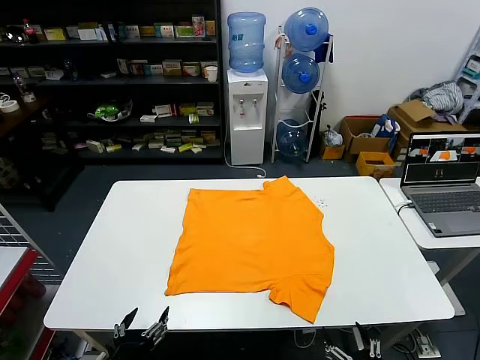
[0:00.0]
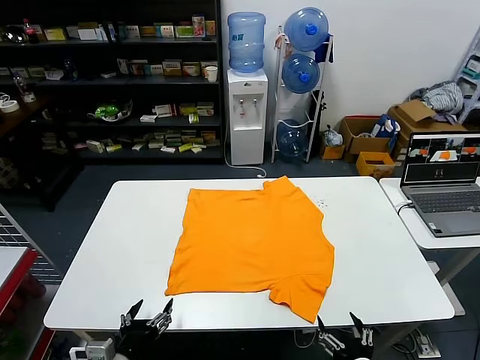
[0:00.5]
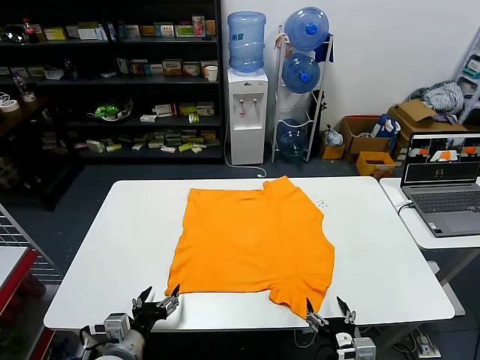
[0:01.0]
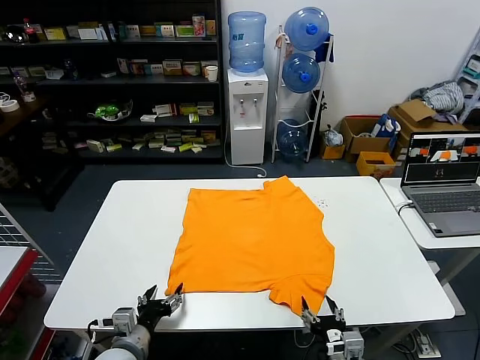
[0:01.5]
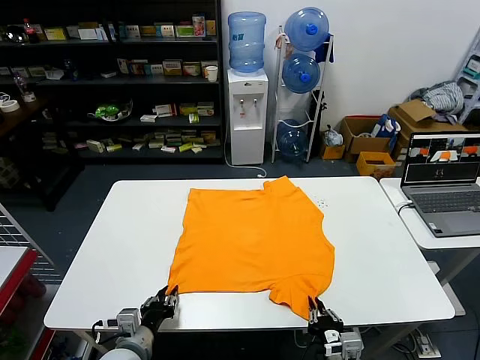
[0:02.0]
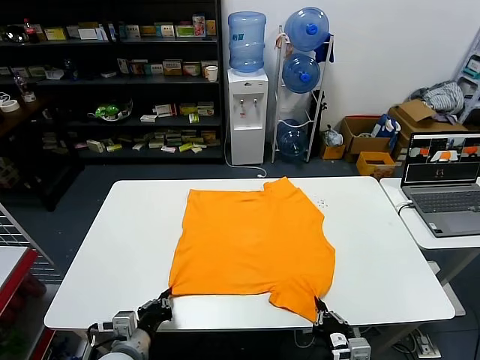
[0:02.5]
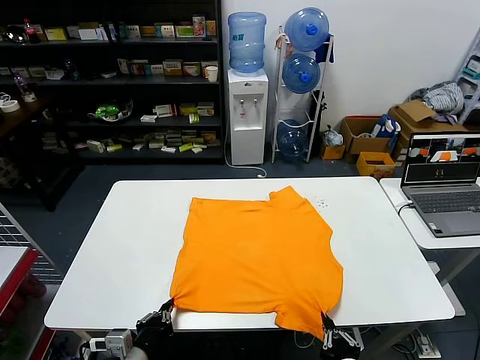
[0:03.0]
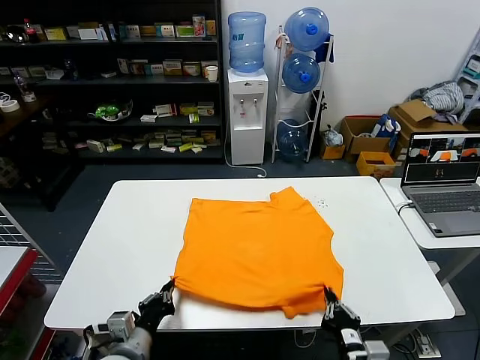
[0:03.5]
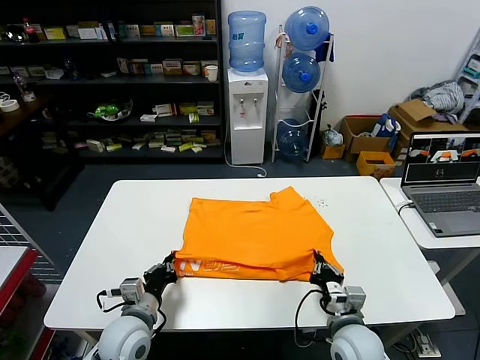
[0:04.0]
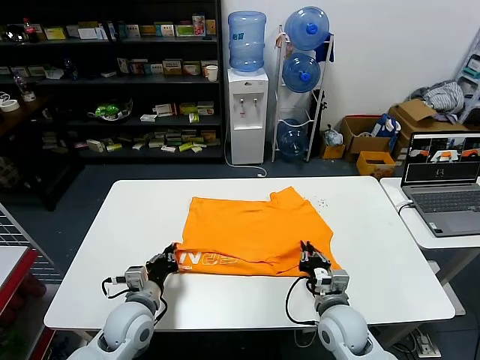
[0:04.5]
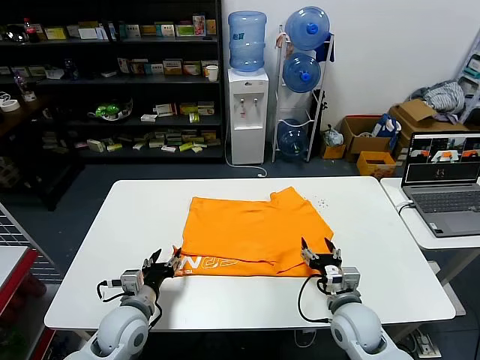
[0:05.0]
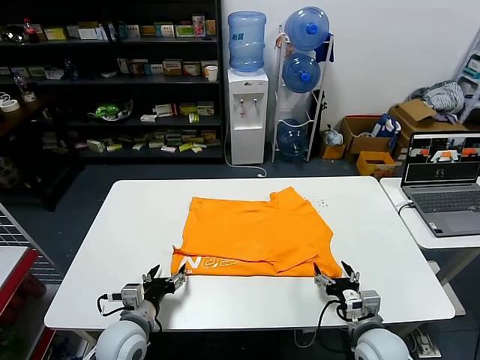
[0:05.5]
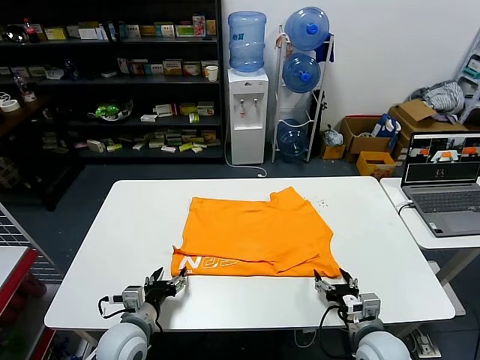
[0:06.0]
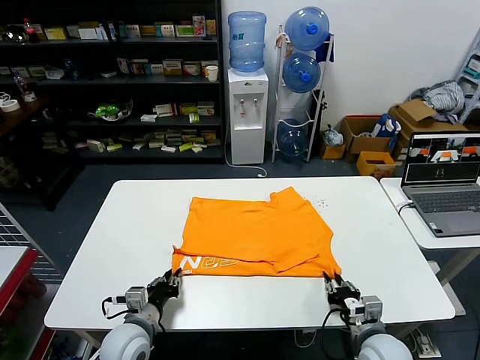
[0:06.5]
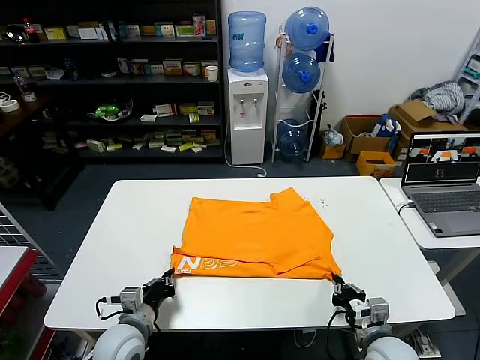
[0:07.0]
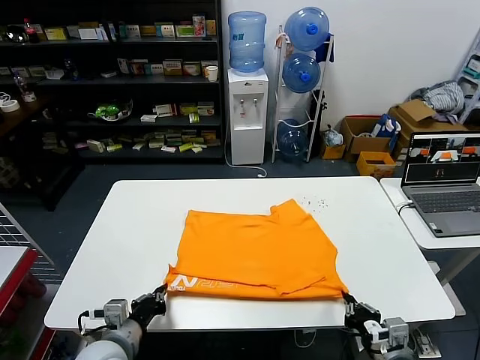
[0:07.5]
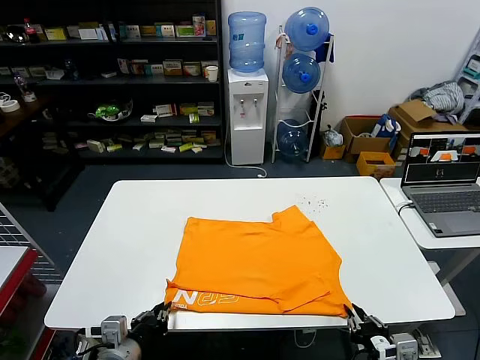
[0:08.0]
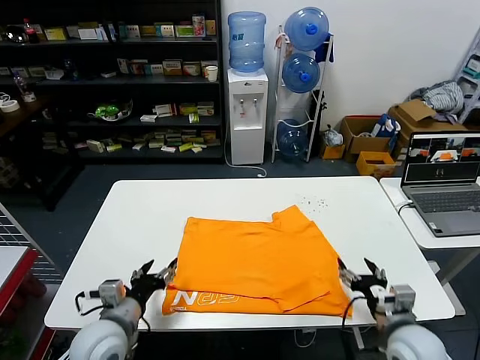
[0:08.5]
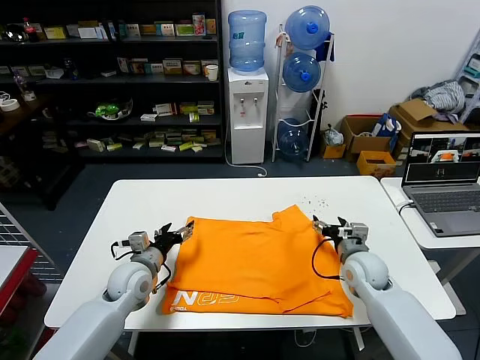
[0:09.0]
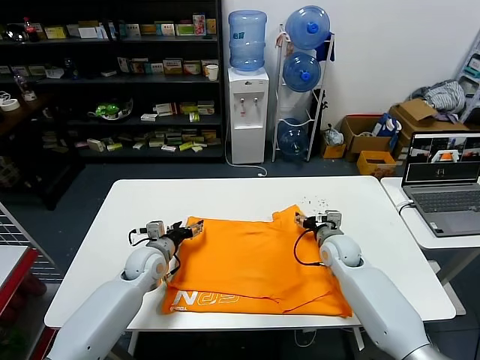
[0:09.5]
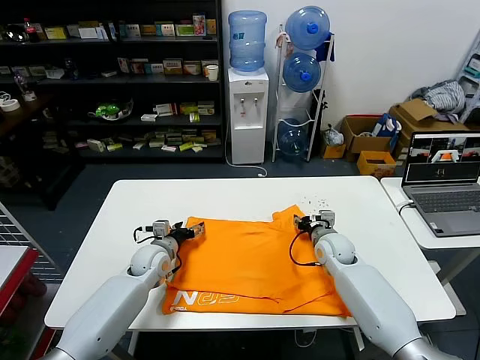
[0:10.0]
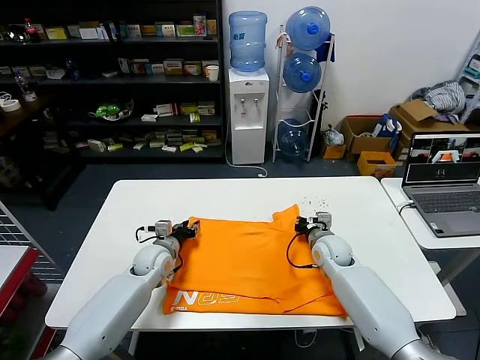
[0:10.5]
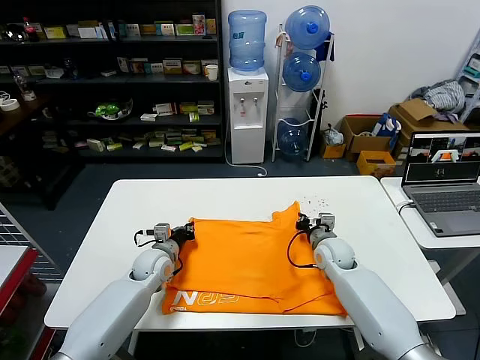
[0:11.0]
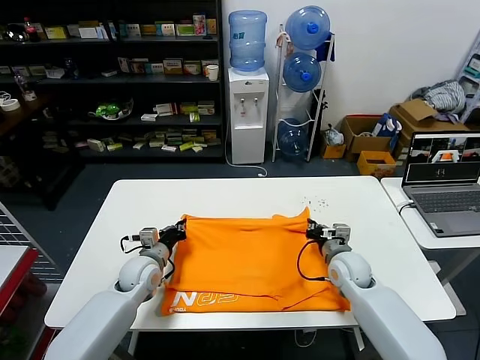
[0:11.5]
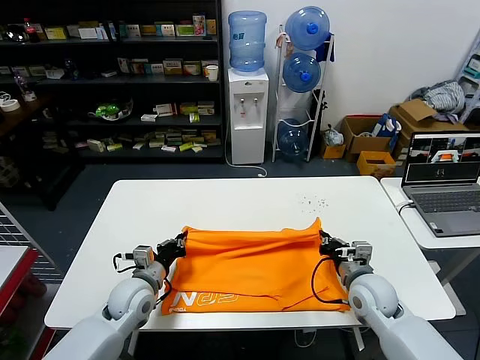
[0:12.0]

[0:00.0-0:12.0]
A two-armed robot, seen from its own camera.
Task of the whole recording: fold and organize the clothes.
Step, 0:00.0 to 0:02.0: use both grippers simultaneously to clamp the lower edge of the clothing fabric.
Step, 0:02.5 to 0:04.5: use both grippers to drag the lower edge of the fabric forward and fold it over the upper edge.
Step, 0:05.0 to 0:08.0: Drag the clothes downward with both gripper.
Step, 0:08.5 to 0:10.5: use both grippers simultaneously to clamp the upper edge of the clothing fabric.
0:02.0 to 0:04.0: The right gripper shifts approximately 10 cm forward, while the left gripper travels forward by about 5 cm, and closes up.
0:04.0 to 0:06.0: The left gripper opens up. The right gripper moves to the right, roughly 5 cm, and opens up.
0:06.0 to 0:08.0: Both grippers move backward and upward, approximately 10 cm. The left gripper closes its fingers. Meanwhile the right gripper closes.
0:08.0 to 0:10.0: The two grippers go roughly 30 cm forward. The left gripper opens its fingers. Meanwhile the right gripper opens.
0:10.0 to 0:12.0: The grippers both shift backward by about 10 cm. The left gripper closes up, while the right gripper closes its fingers.

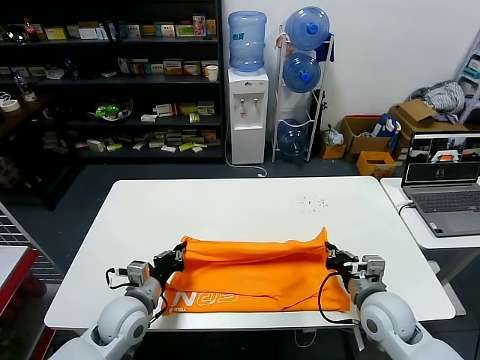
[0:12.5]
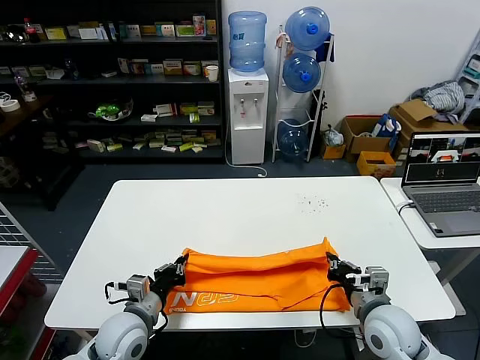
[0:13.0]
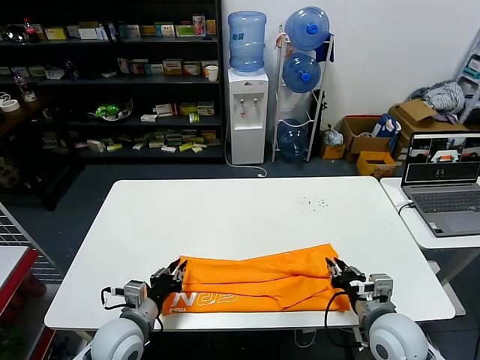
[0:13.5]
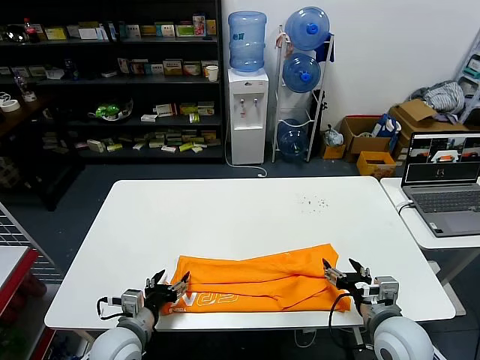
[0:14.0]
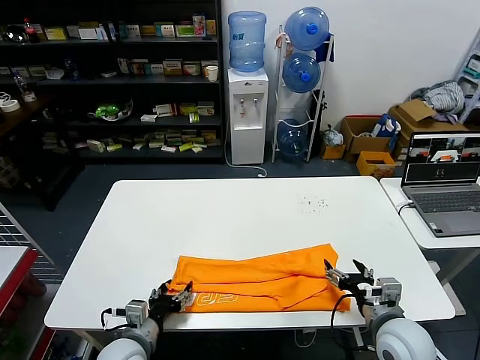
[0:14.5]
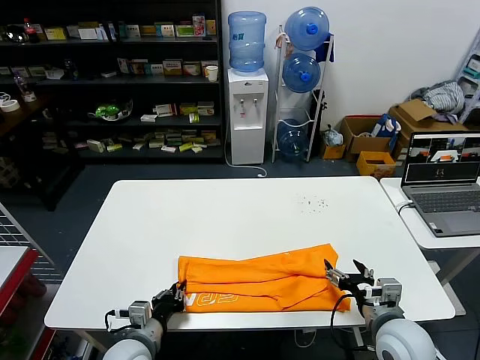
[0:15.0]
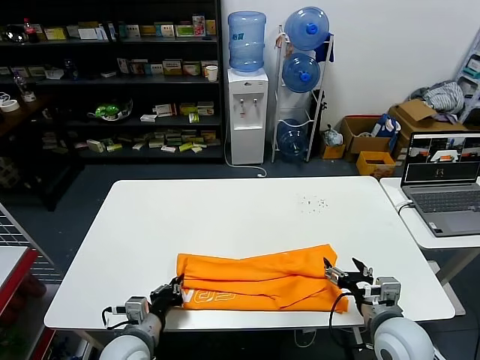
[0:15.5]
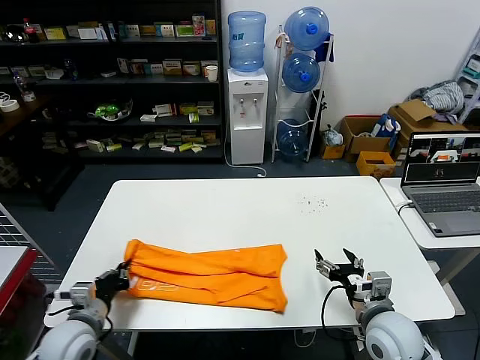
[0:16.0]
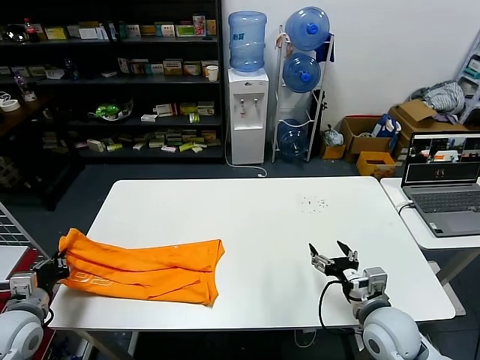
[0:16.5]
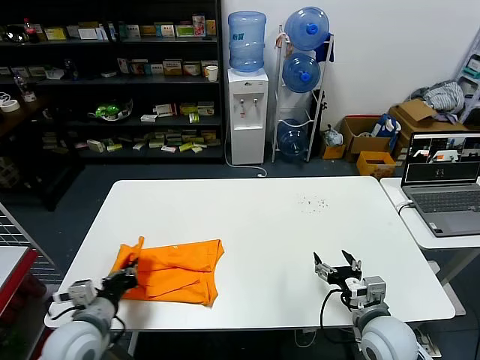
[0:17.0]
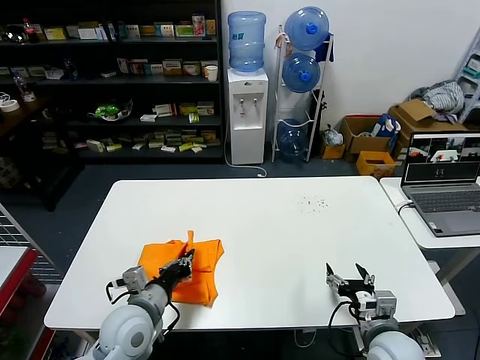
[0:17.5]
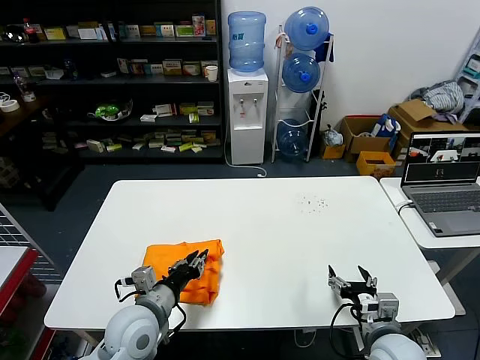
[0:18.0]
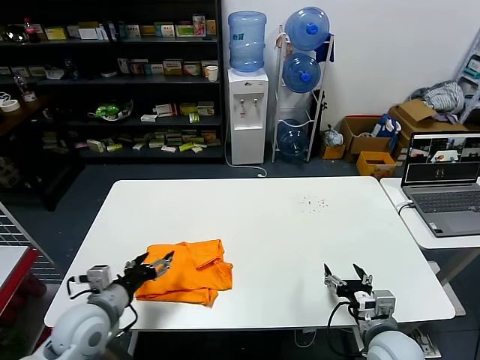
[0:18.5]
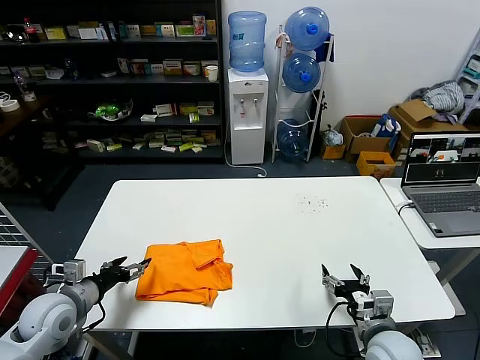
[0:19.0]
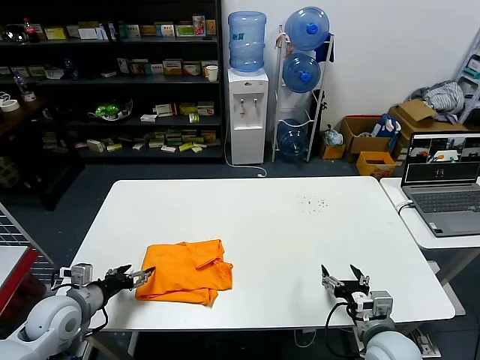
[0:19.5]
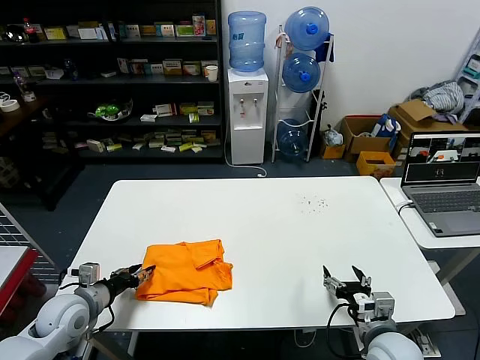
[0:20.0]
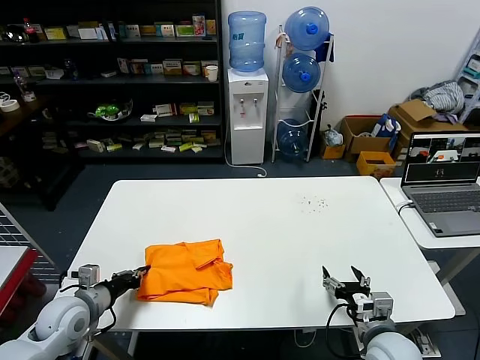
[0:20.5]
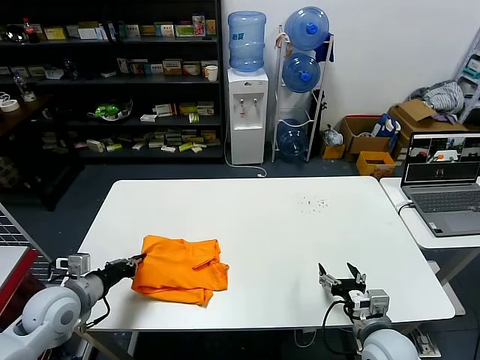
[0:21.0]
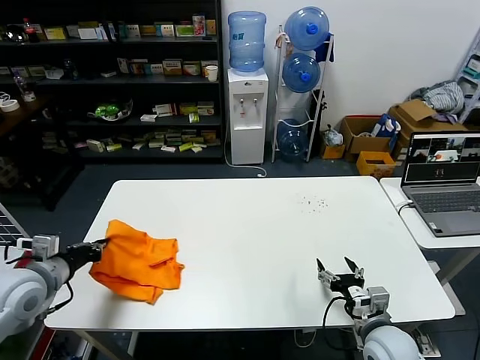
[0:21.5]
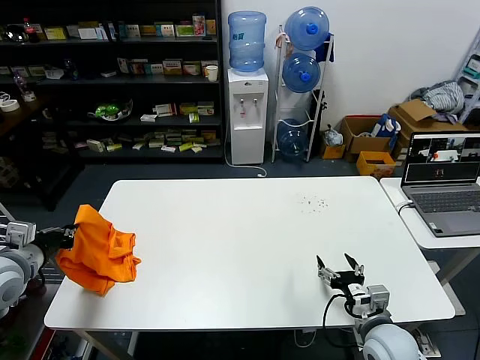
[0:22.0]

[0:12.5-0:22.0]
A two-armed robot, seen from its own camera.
Task of the whole recording: fold and organize the clothes.
Step, 0:13.5 to 0:15.0: use the left gripper to clamp the left edge of the fabric.
Step, 0:15.5 to 0:18.0: use the left gripper to drag the left edge of the fabric to the left and folds it over the right edge.
0:12.5 to 0:14.5: The two grippers go some 5 cm backward. The left gripper opens, while the right gripper opens.
0:14.5 to 0:16.5: The left gripper heads to the left, covering about 20 cm, and closes up.
0:16.5 to 0:18.0: The left gripper heads to the right, covering some 25 cm. The right gripper ends up some 5 cm from where it was.
0:18.0 to 0:20.0: The left gripper goes roughly 20 cm to the left, and opens up.
0:20.0 to 0:22.0: The left gripper moves upward, some 15 cm, and closes up.

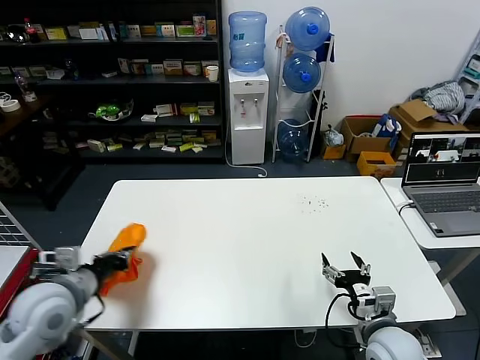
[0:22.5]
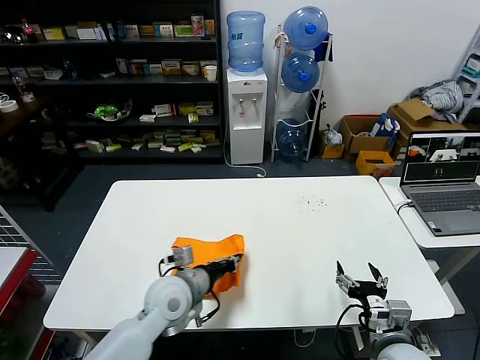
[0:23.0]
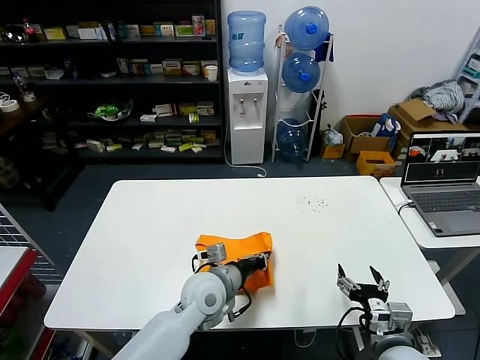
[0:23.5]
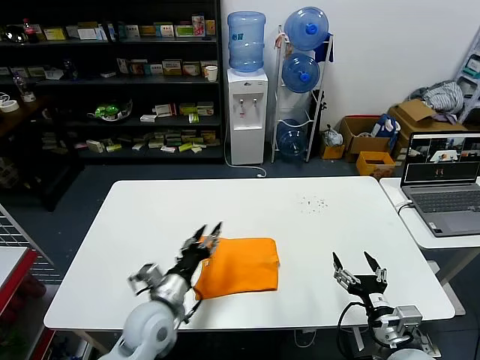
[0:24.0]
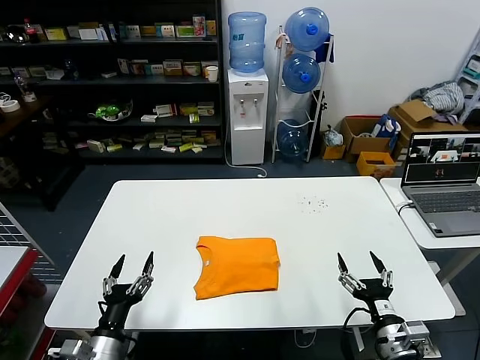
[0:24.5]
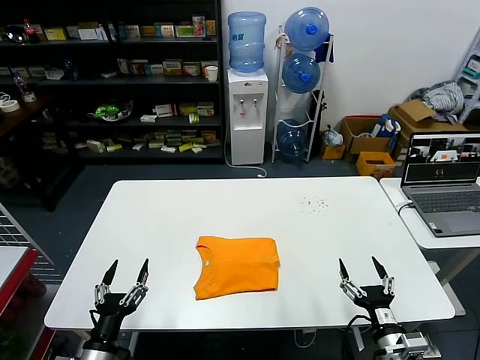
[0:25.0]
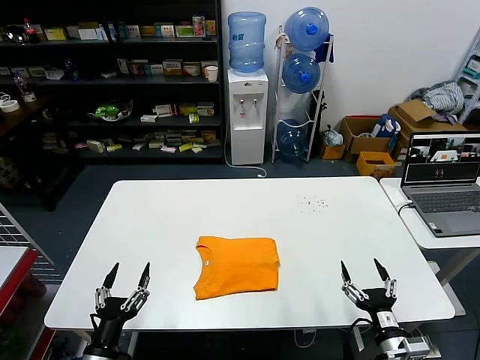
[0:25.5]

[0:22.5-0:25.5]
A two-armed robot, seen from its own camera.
Task of the whole recording: fold and organize the clothes.
0:22.5 to 0:24.0: The left gripper travels to the right and downward by about 25 cm, and opens.
0:24.0 to 0:25.5: The left gripper travels backward and to the left by roughly 20 cm, and opens. The right gripper shifts by some 5 cm.
